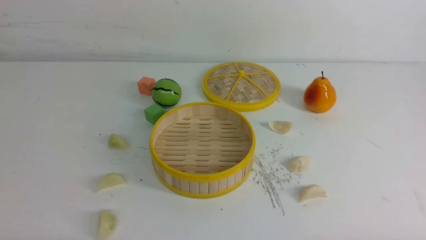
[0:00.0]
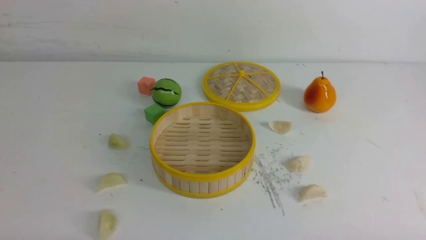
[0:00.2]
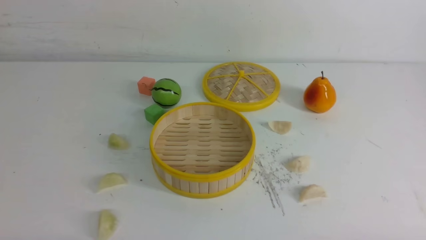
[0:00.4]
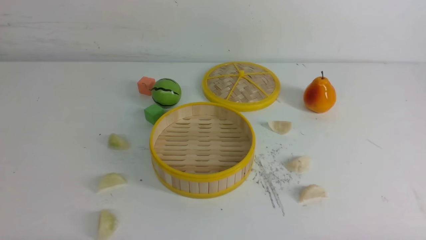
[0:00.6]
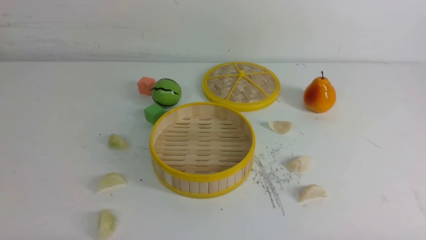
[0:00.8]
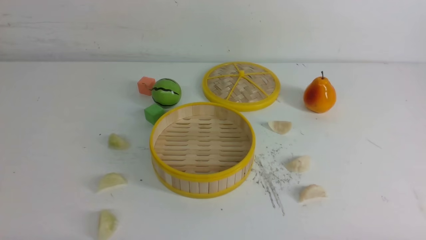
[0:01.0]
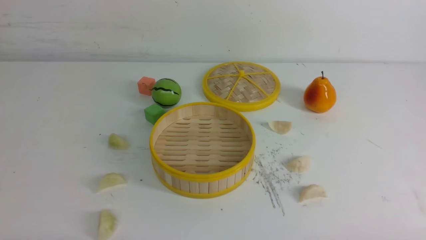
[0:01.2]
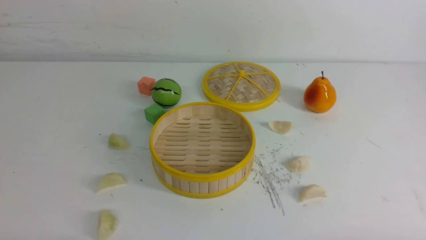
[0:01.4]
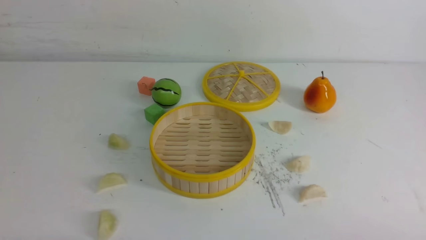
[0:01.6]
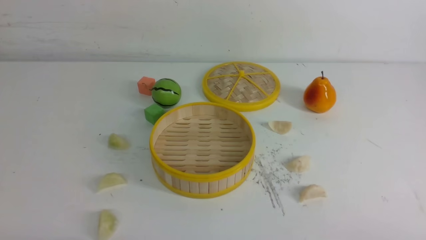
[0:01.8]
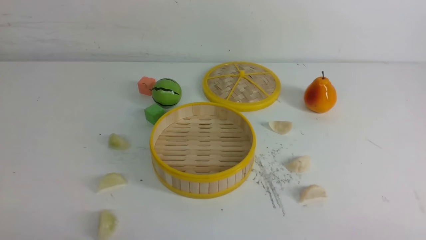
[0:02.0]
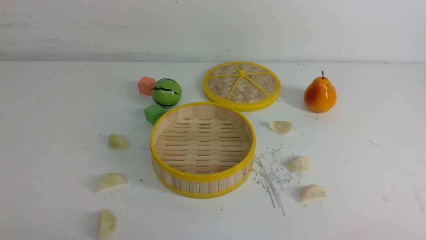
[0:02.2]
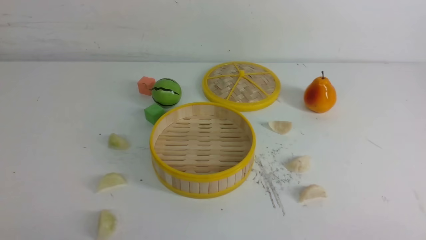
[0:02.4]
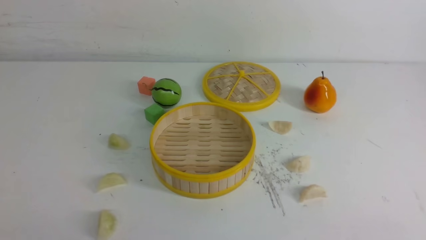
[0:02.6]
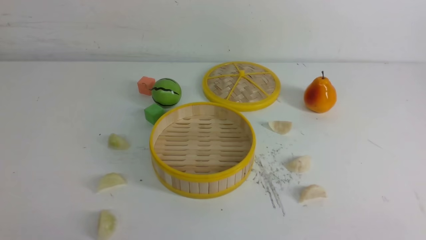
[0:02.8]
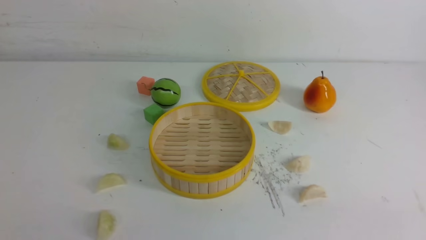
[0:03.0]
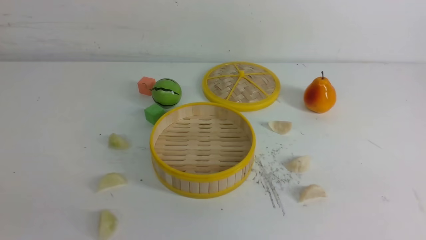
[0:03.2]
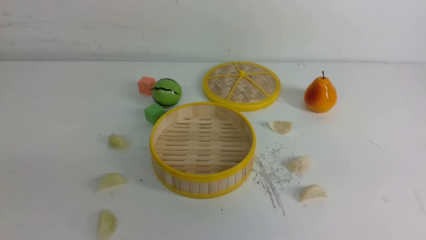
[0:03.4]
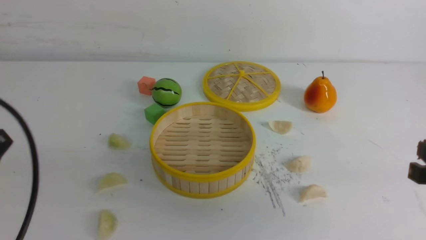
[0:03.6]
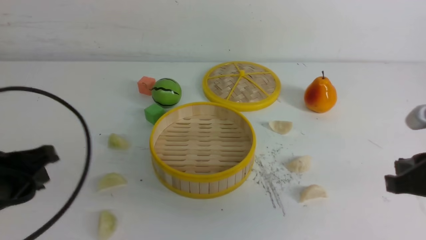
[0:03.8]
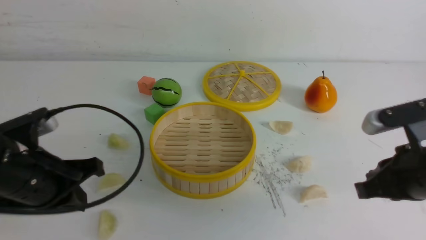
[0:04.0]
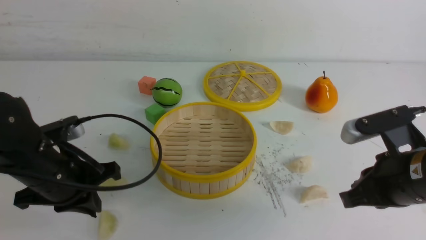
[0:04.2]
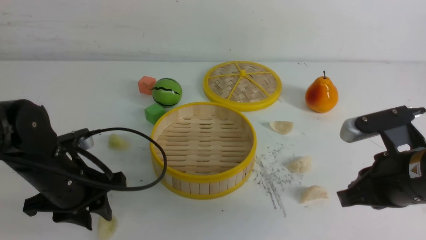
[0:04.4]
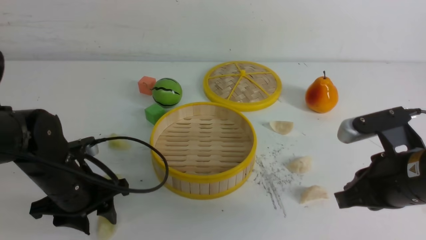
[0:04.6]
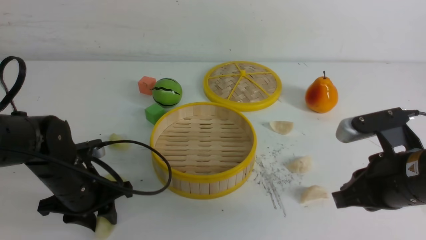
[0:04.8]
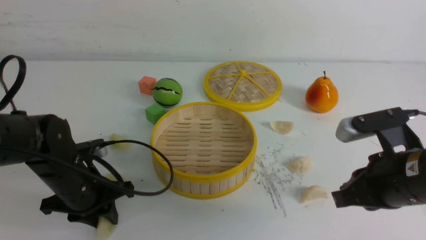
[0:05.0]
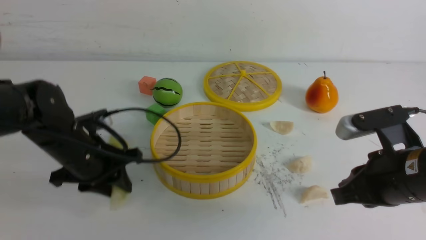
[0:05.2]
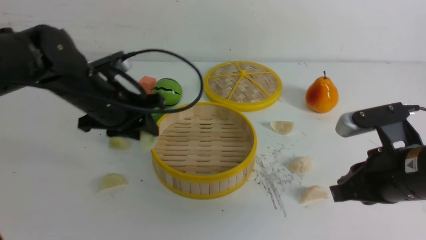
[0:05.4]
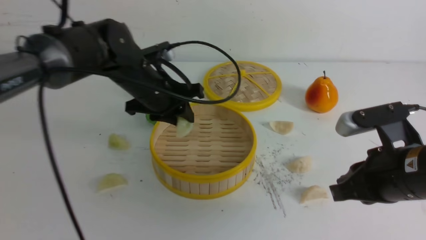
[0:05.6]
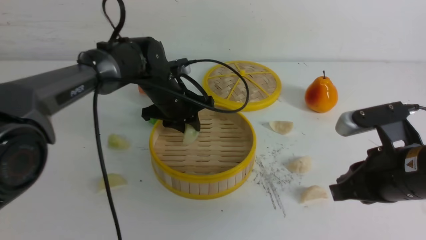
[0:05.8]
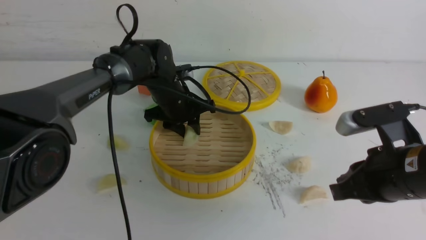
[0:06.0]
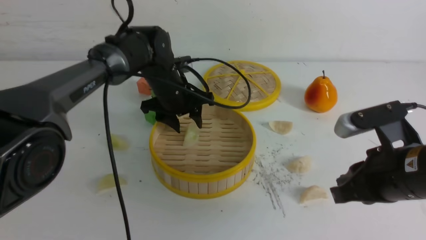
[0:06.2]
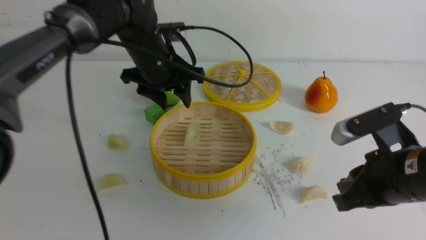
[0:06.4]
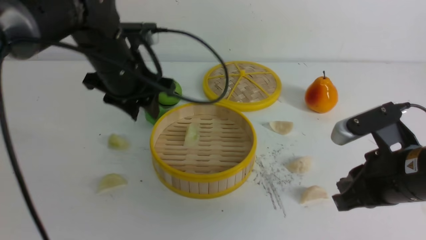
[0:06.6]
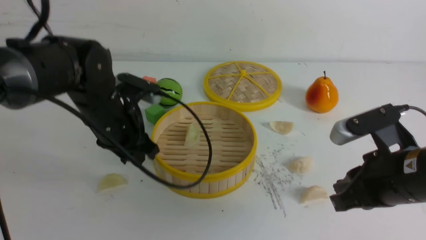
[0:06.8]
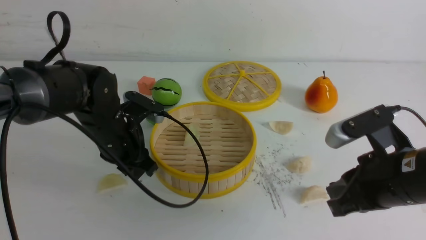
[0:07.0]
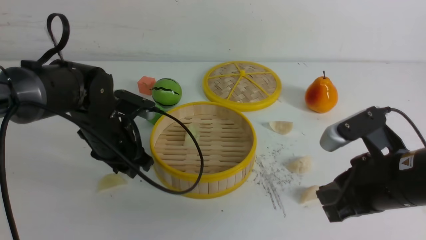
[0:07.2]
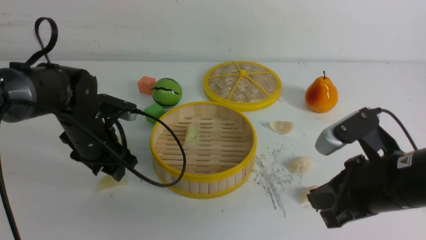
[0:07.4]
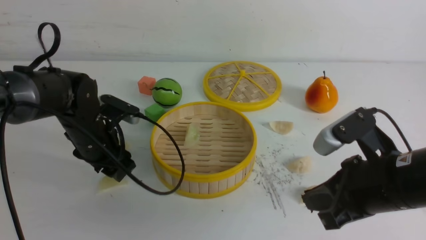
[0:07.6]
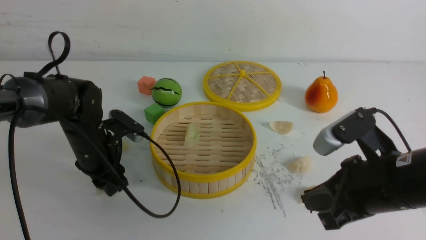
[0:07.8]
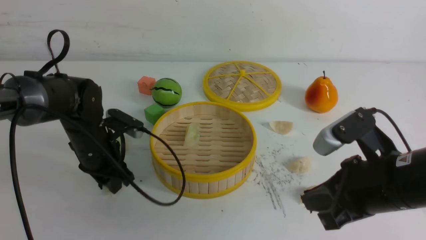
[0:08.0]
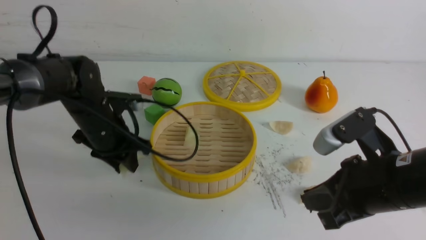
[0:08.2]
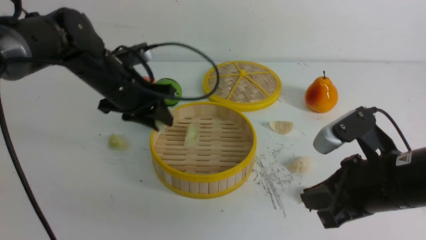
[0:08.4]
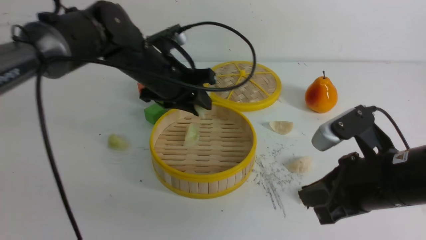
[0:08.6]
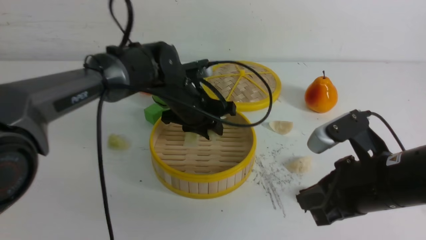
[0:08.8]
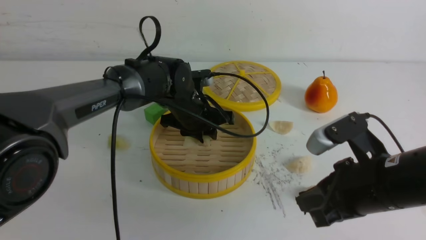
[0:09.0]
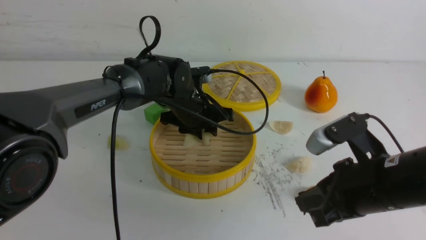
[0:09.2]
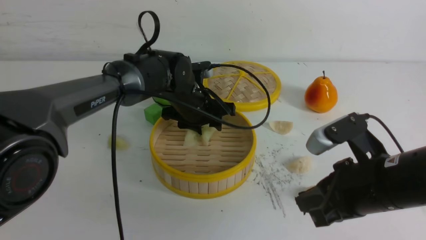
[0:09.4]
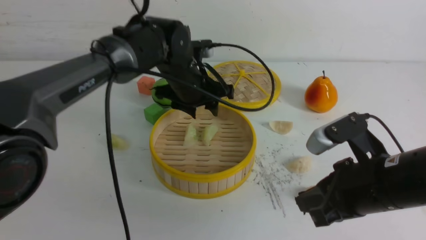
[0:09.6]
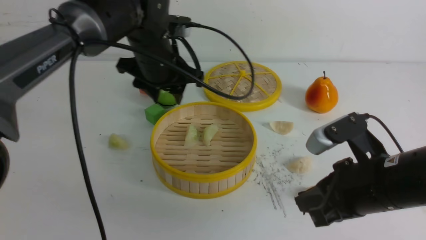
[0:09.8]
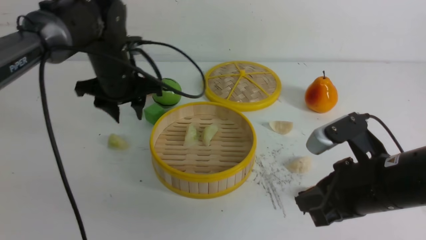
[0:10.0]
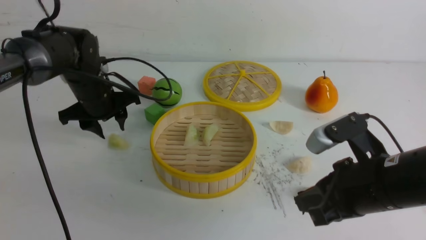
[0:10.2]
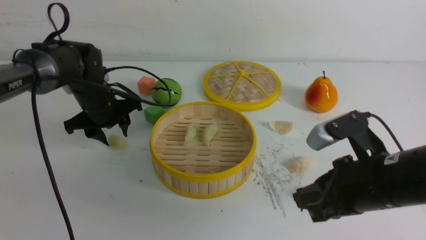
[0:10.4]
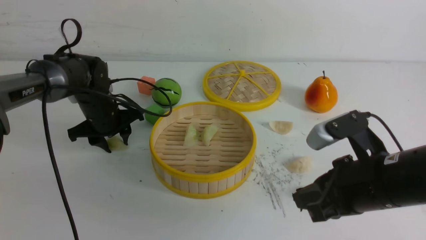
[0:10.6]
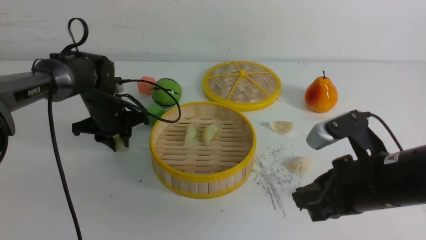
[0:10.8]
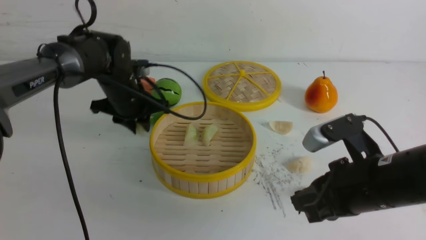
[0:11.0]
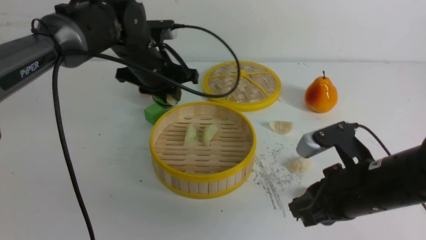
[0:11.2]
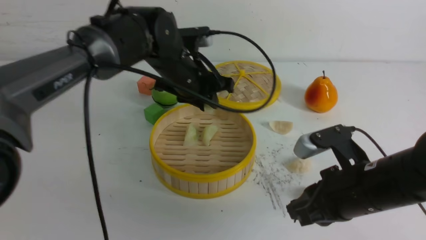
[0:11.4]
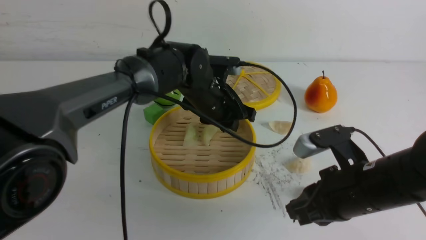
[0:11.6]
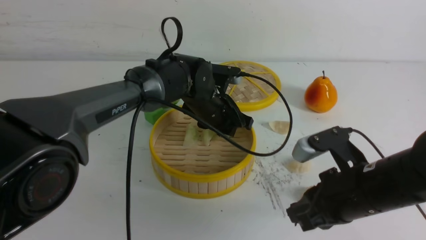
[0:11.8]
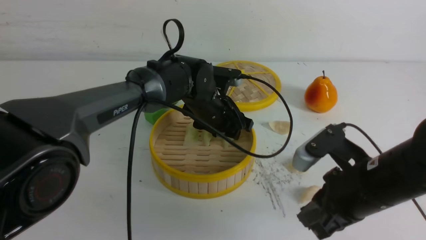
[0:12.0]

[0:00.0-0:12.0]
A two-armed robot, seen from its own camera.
Task of the whole recording: put the dumplings into the steamer on the white table.
Step, 0:00.0 to 0:05.0: use the left arm to grab a dumpling.
Step, 0:05.2 to 0:06.0: use the left arm to put the dumpling into the steamer.
Step, 0:06.2 to 0:08.0: use the left arm to grab a dumpling.
Step, 0:08.2 to 0:09.4: use the left arm to put the dumpling into the steamer.
Step, 0:09.6 to 0:10.6: use the left arm to grab a dumpling.
0:03.0 to 0:04.4: The left gripper goes some 25 cm forward, and closes, then reopens, while the right gripper shifts about 15 cm forward and to the left.
0:04.4 to 0:06.0: The left gripper is displaced forward and to the right by some 25 cm.
0:06.0 to 0:07.6: The left gripper is displaced to the left and backward by roughly 15 cm.
0:07.6 to 0:09.0: The left gripper is displaced to the right and forward by approximately 15 cm.
0:09.0 to 0:10.4: The left gripper goes roughly 15 cm to the left.
0:10.4 to 0:12.0: The left gripper goes about 20 cm to the right, and closes, then reopens.

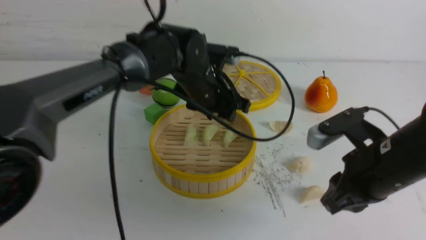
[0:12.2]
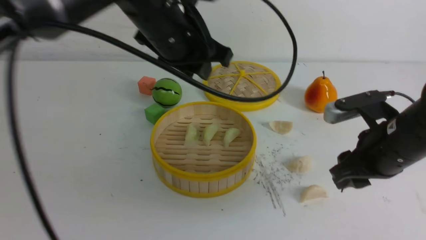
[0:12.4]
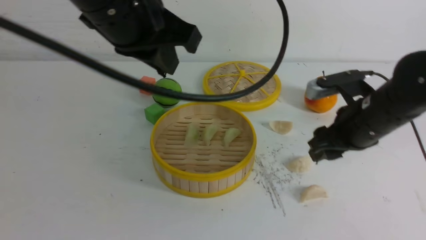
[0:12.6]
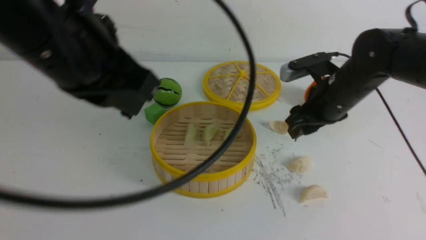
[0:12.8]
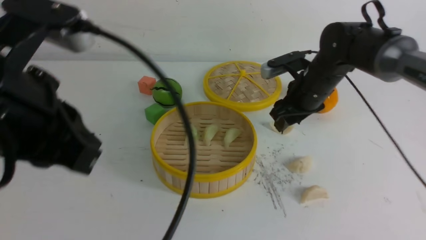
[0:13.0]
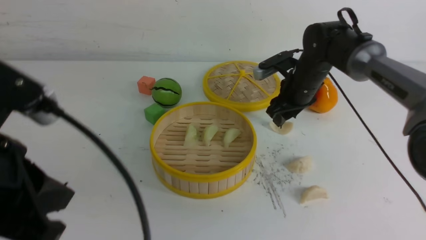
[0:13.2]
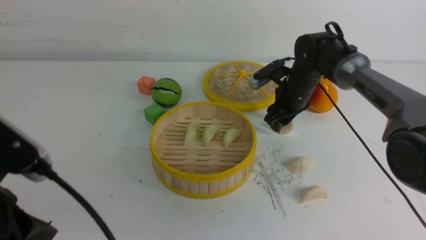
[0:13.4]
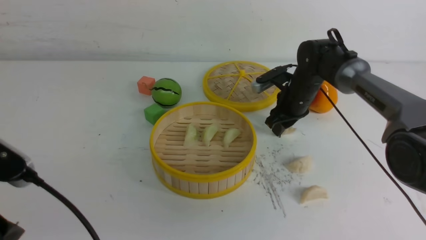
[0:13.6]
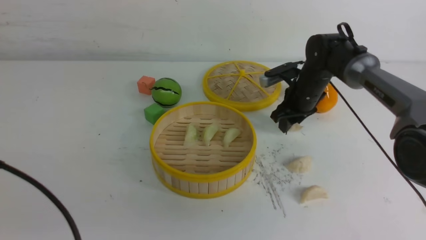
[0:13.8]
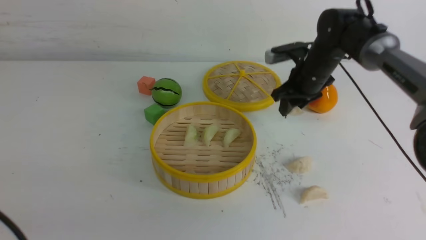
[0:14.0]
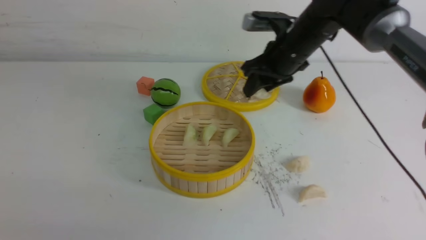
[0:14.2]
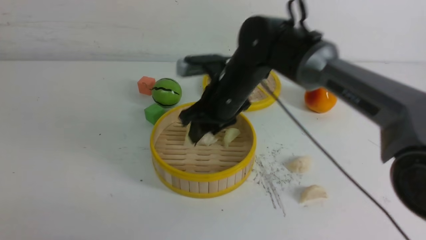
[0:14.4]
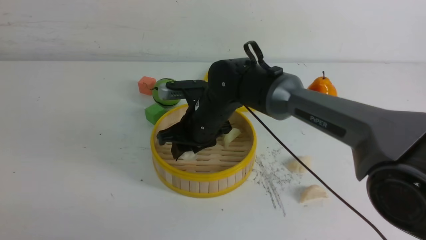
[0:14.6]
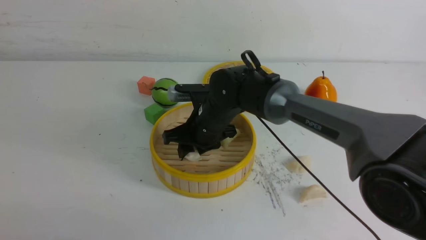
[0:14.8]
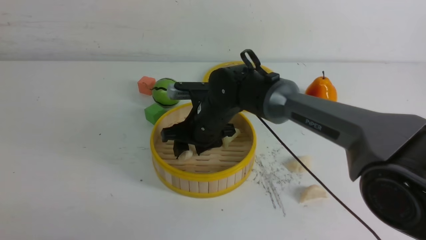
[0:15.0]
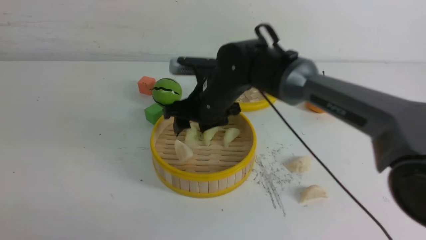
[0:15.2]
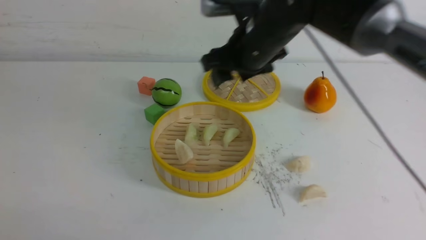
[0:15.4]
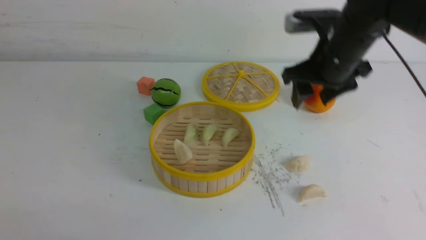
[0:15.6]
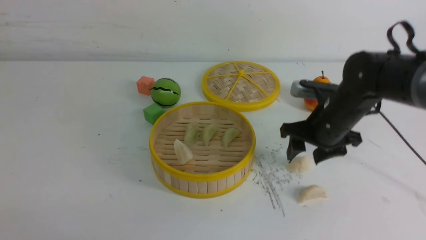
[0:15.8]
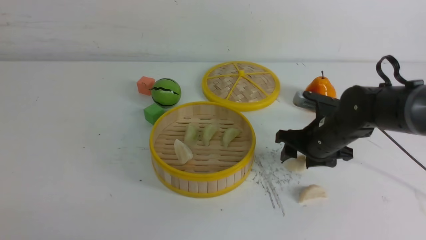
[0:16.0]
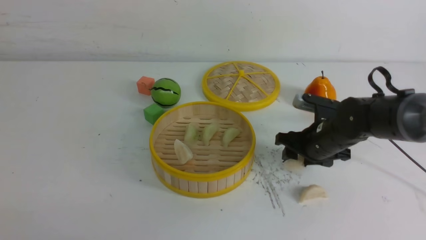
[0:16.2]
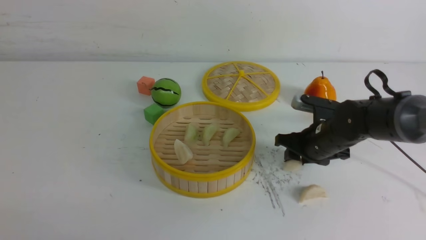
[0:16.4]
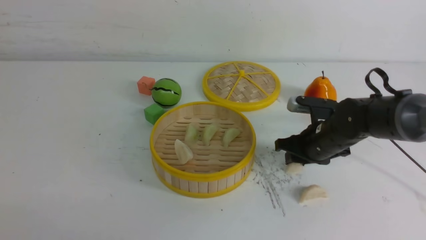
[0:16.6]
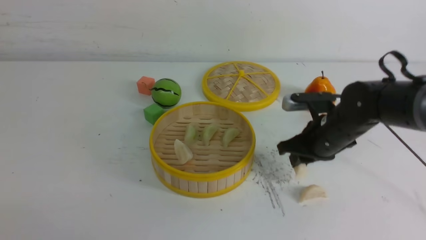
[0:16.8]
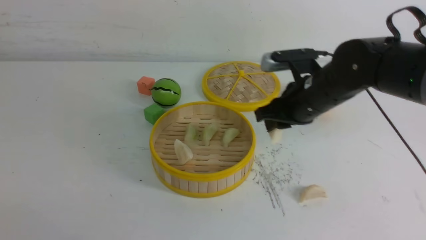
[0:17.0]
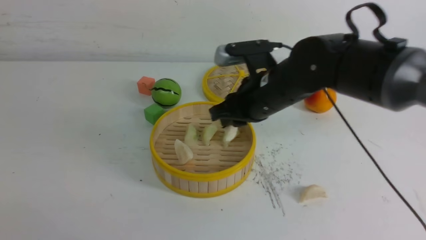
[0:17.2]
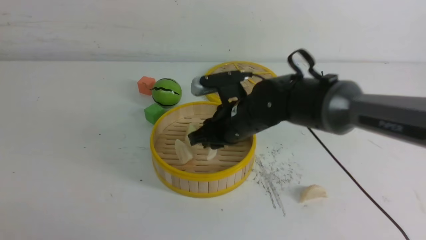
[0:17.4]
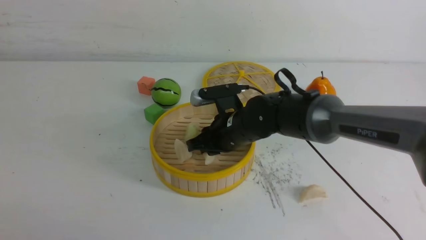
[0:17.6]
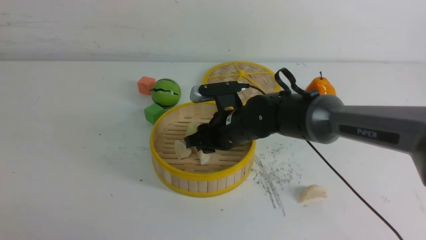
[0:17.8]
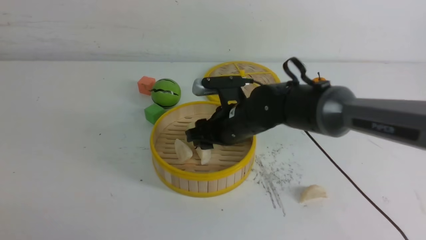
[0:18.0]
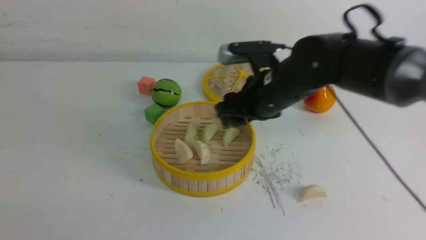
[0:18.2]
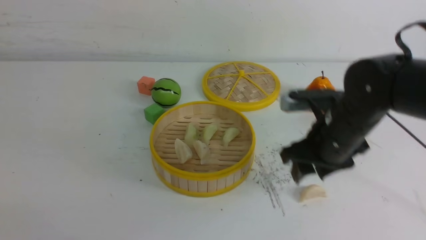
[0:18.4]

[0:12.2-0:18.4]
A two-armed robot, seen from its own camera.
Task of the whole recording: put the dumplings into the steamer on the white table.
Step, 0:12.2 to 0:13.4: use the right arm to grab a dumpling.
Step, 0:13.8 to 0:15.0: use the right arm to put the dumpling into the steamer.
Step, 0:15.2 to 0:16.6: use the right arm to grab a dumpling.
Step, 0:17.0 to 0:17.6: use the right arm to put the dumpling into the steamer.
0:12.2 to 0:13.8: The right gripper travels forward by some 25 cm. The left gripper travels backward and to the left by approximately 35 cm, and closes.
0:13.8 to 0:15.4: The right gripper travels upward, backward and to the left by approximately 15 cm, and opens; the left gripper goes roughly 5 cm backward.
0:15.4 to 0:16.8: The right gripper shifts about 15 cm downward and to the right, and closes up.
0:16.8 to 0:18.4: The right gripper reaches roughly 15 cm to the left, then returns, and opens up.
